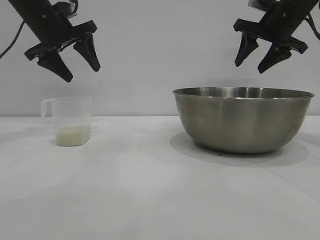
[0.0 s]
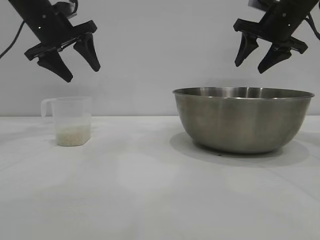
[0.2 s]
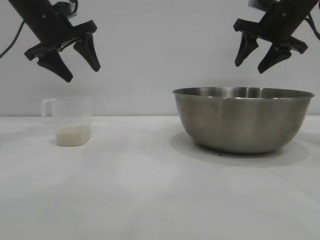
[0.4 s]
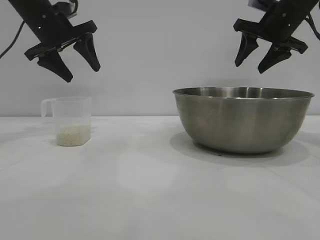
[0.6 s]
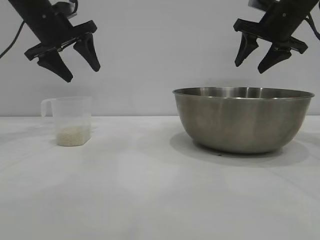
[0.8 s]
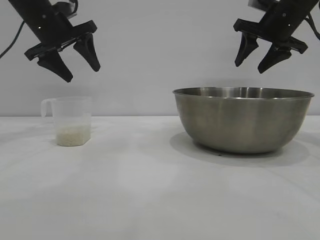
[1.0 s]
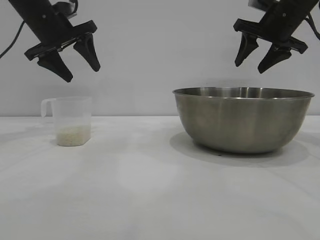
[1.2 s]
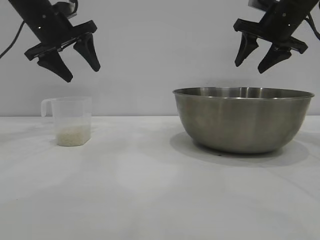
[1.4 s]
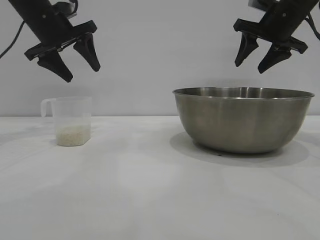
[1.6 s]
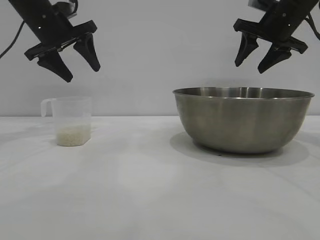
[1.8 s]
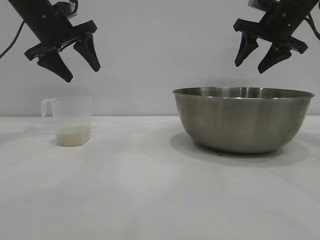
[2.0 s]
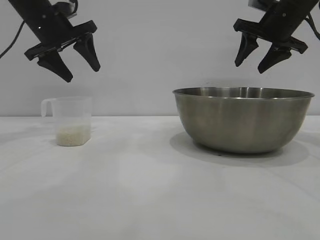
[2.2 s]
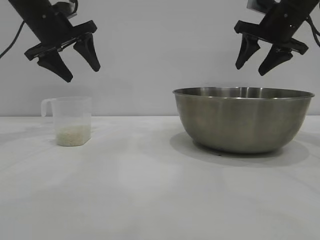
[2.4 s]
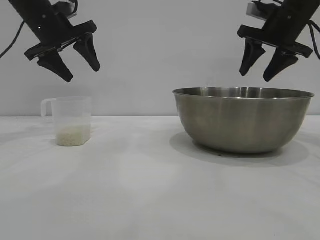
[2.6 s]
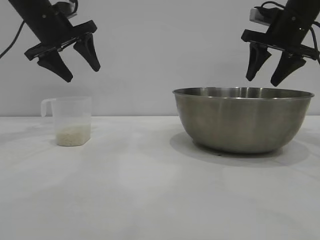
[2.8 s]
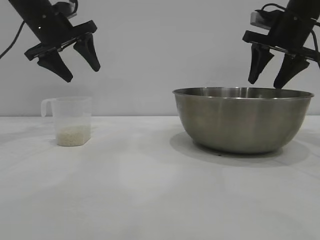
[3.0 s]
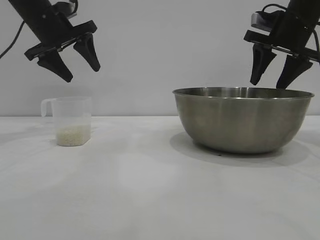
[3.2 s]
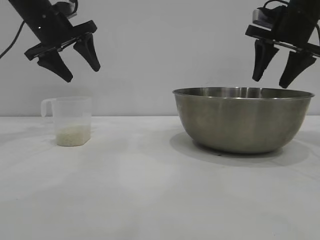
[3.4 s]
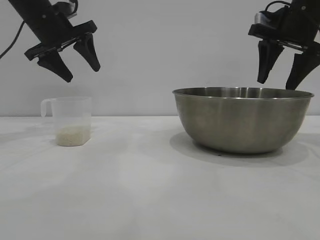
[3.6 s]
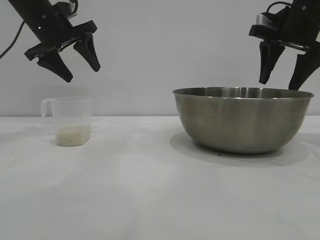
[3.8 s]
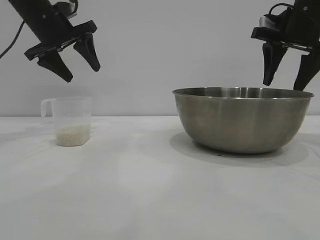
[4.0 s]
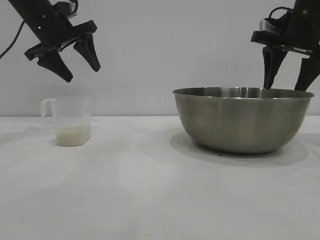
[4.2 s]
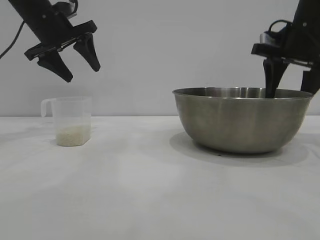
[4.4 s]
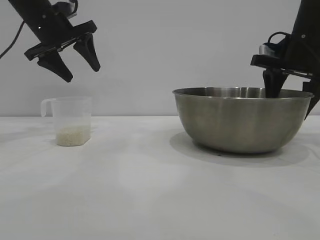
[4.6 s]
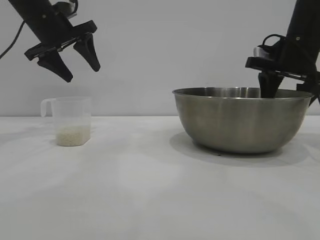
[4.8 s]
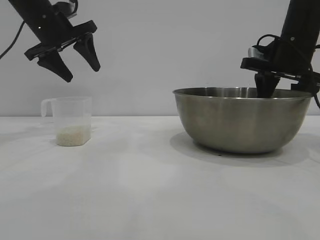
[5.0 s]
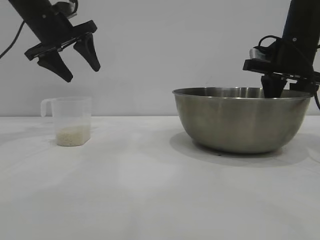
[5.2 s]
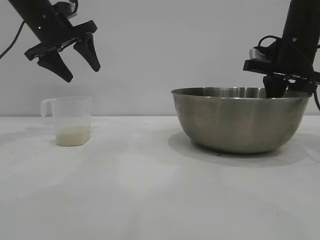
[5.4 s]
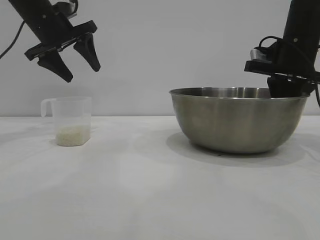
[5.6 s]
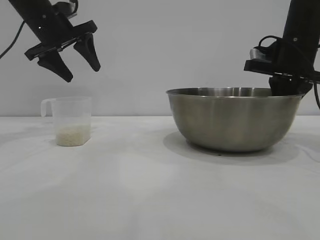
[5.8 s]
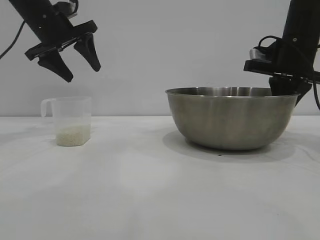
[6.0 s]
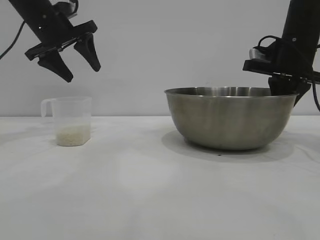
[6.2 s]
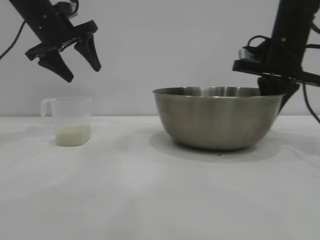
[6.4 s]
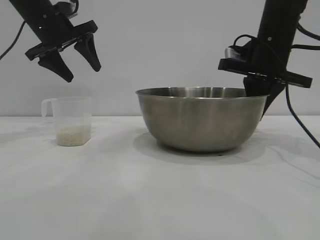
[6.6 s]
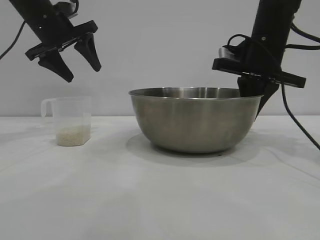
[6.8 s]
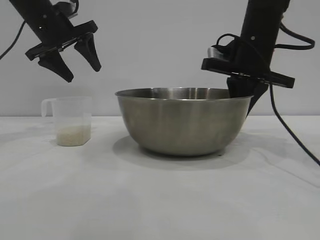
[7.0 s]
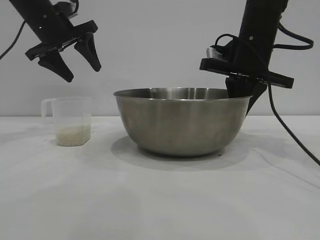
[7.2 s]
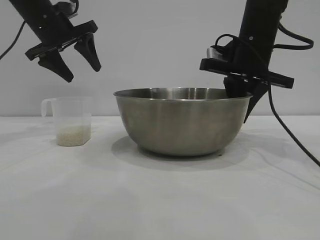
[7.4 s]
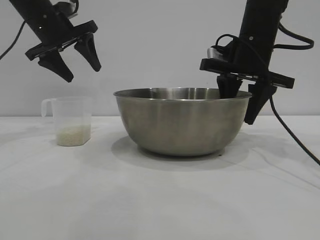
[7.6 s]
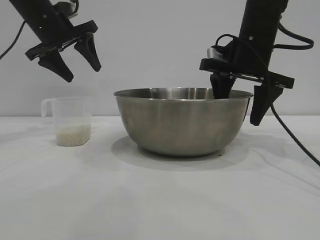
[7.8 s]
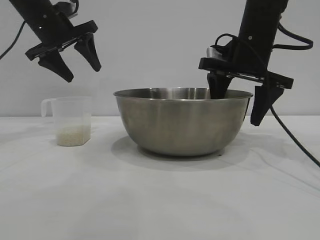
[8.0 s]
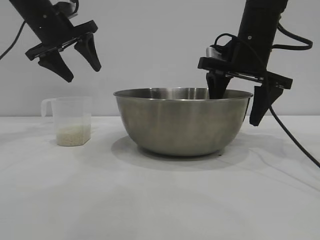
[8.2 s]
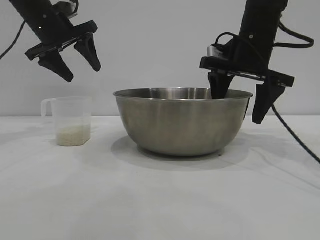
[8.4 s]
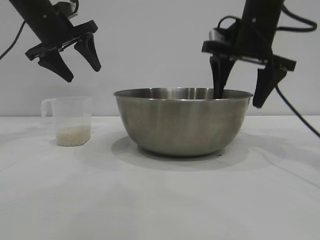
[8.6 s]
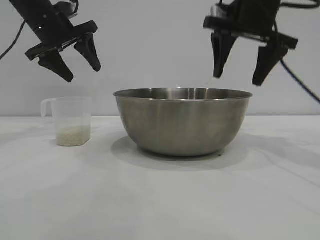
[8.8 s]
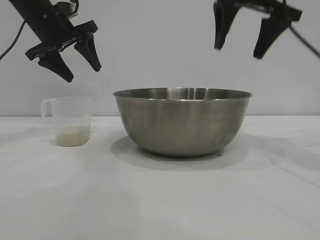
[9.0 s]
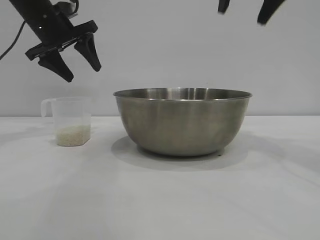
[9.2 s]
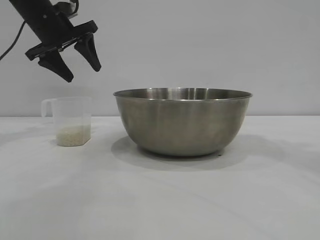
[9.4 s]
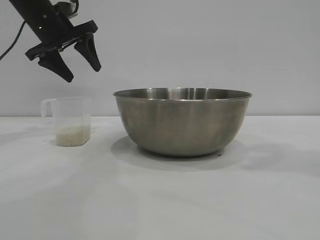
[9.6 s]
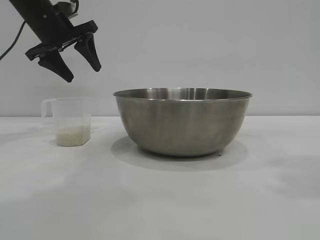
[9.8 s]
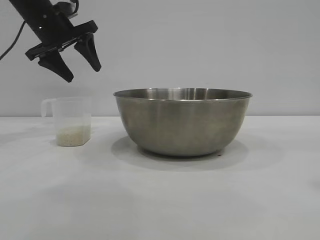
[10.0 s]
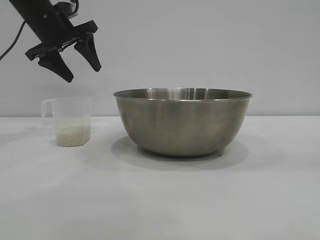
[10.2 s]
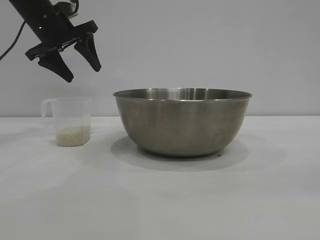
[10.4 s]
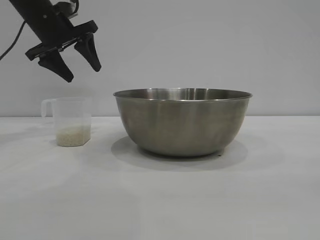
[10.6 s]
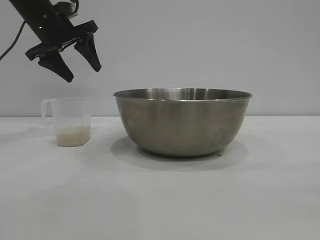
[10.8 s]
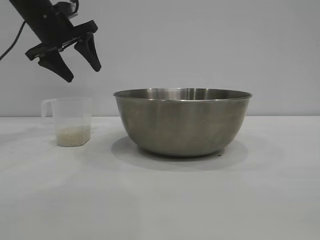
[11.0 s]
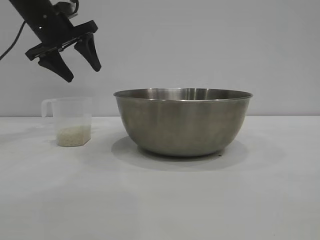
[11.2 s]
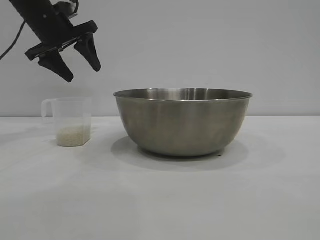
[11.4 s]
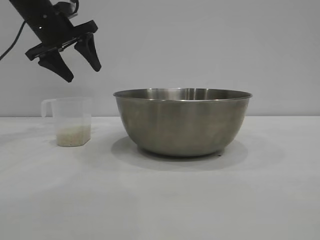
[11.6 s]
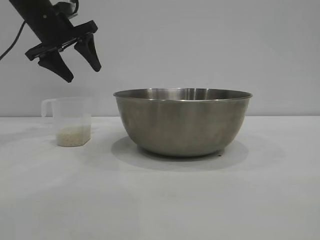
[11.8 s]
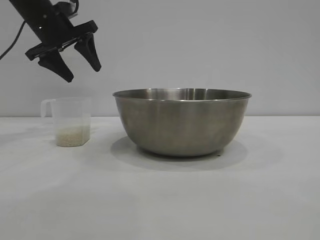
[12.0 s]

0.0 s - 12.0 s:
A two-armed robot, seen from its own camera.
Task of the whole recording: the right gripper grasp the rice container and place it in the center of the table, the left gripper grasp the rice scoop and pour the rice into the rice container.
Step, 0.0 s - 9.0 s: Move the bowl to the center of view with the right gripper.

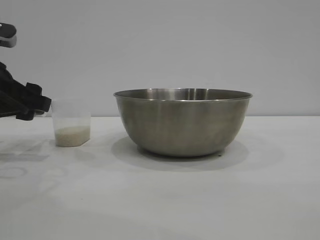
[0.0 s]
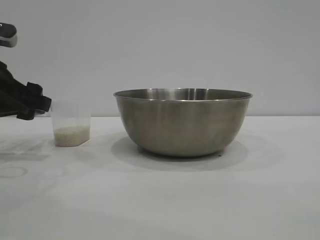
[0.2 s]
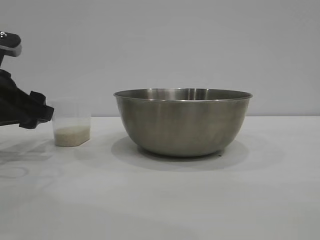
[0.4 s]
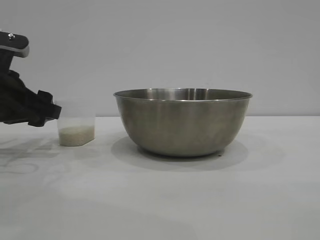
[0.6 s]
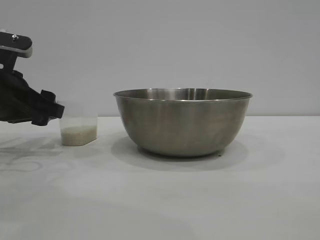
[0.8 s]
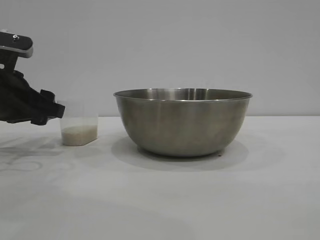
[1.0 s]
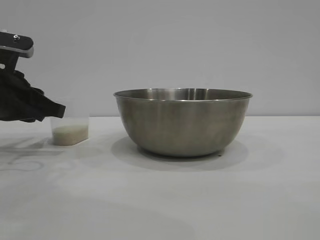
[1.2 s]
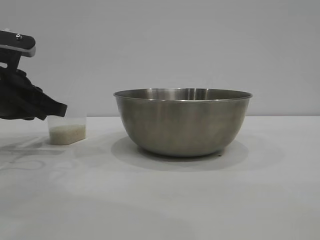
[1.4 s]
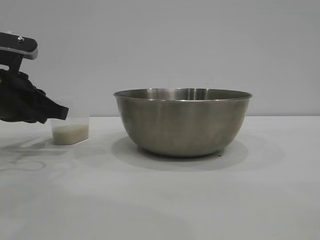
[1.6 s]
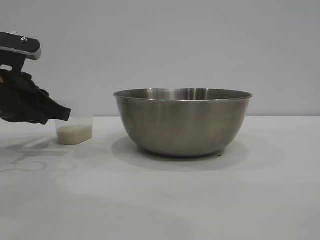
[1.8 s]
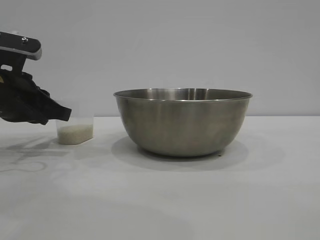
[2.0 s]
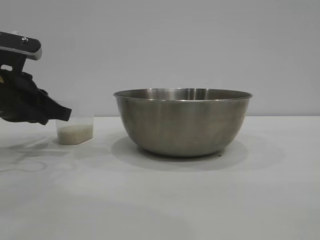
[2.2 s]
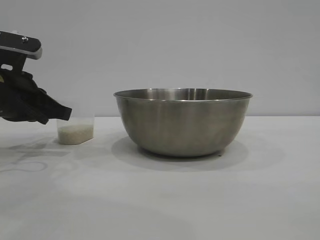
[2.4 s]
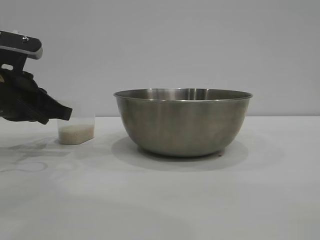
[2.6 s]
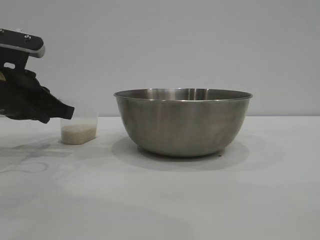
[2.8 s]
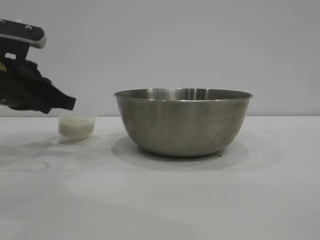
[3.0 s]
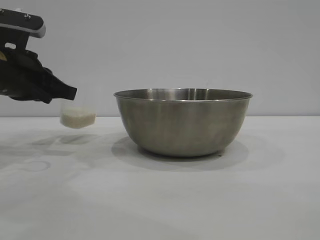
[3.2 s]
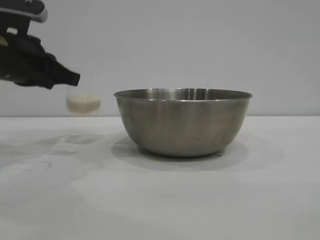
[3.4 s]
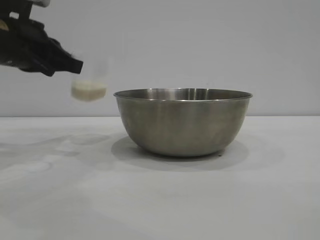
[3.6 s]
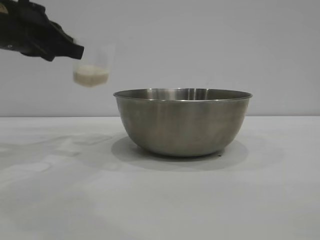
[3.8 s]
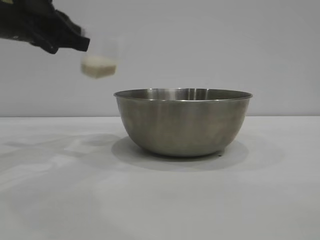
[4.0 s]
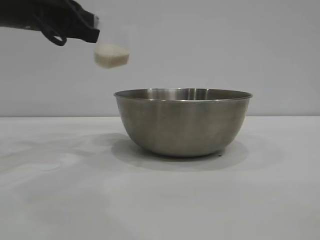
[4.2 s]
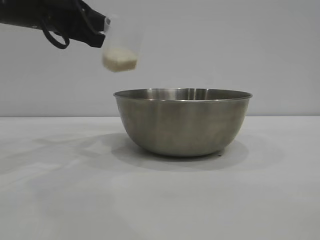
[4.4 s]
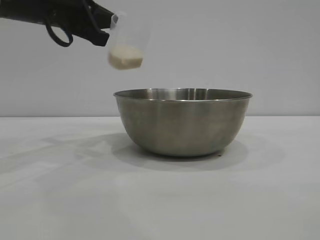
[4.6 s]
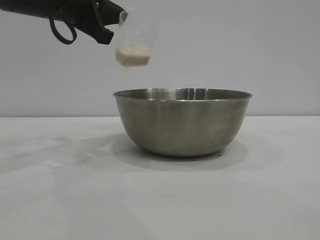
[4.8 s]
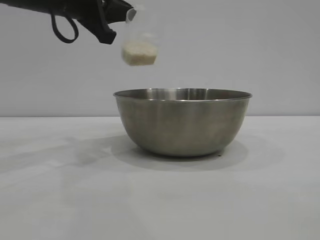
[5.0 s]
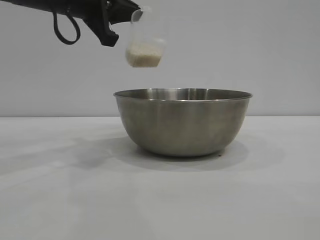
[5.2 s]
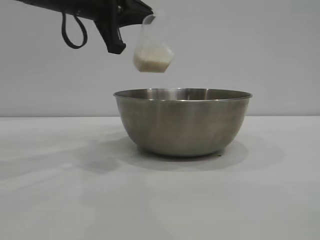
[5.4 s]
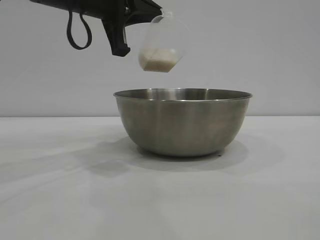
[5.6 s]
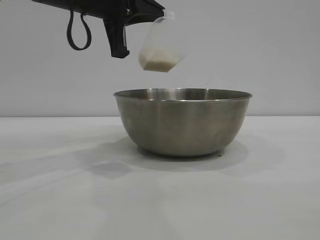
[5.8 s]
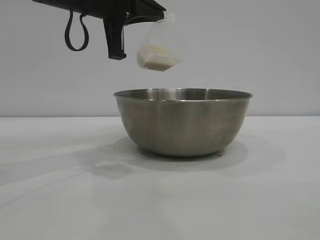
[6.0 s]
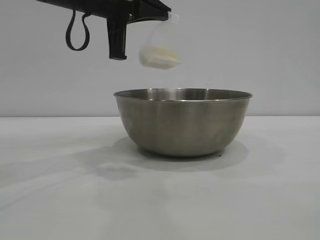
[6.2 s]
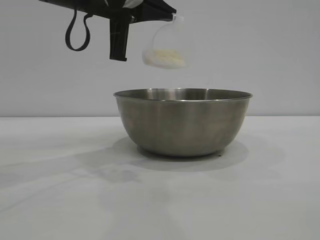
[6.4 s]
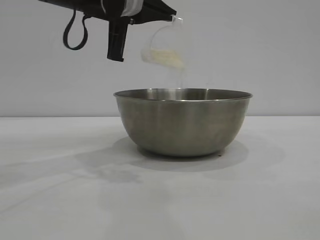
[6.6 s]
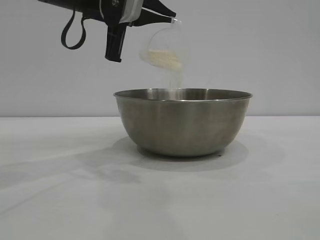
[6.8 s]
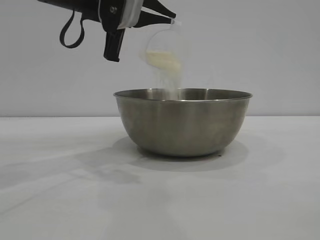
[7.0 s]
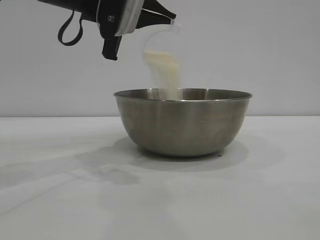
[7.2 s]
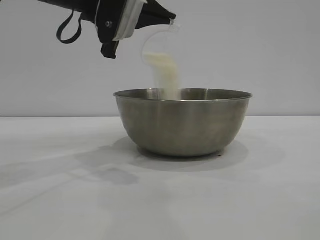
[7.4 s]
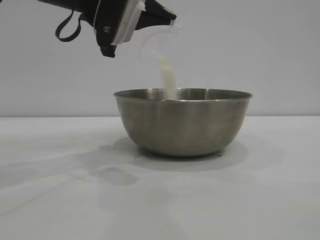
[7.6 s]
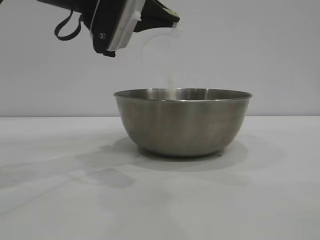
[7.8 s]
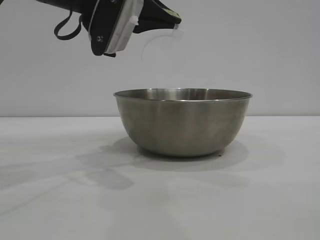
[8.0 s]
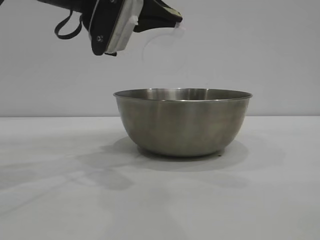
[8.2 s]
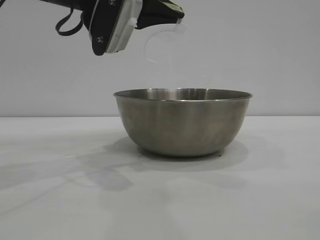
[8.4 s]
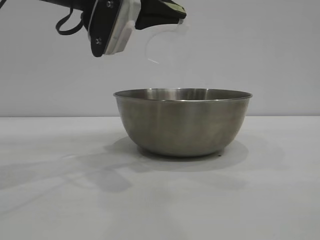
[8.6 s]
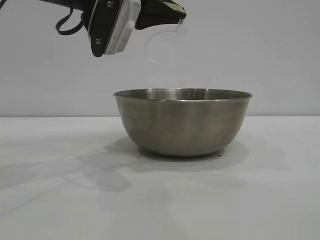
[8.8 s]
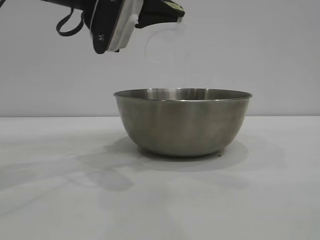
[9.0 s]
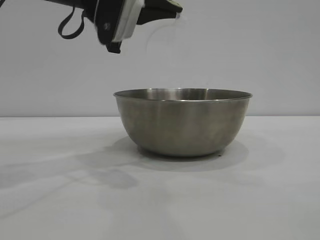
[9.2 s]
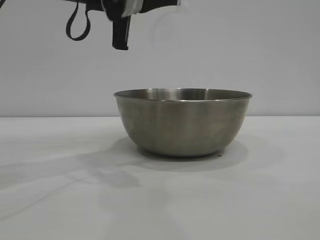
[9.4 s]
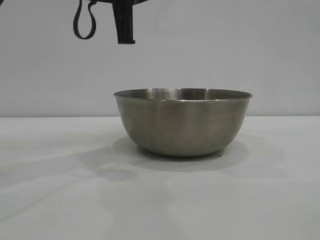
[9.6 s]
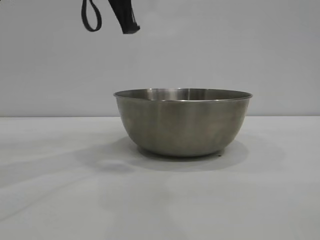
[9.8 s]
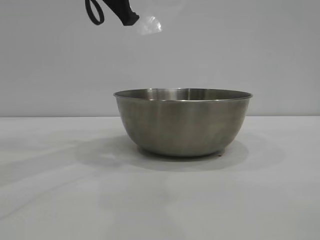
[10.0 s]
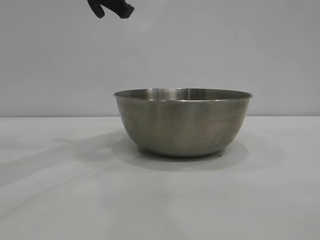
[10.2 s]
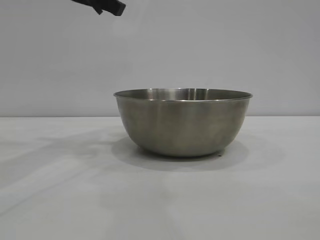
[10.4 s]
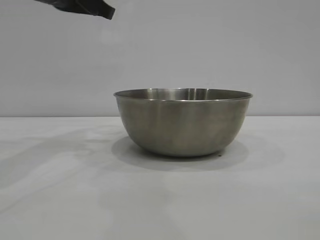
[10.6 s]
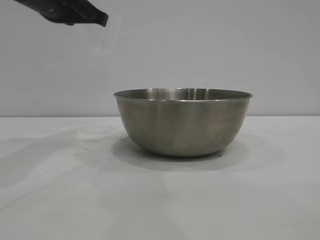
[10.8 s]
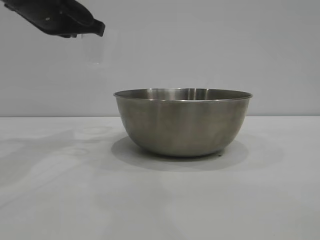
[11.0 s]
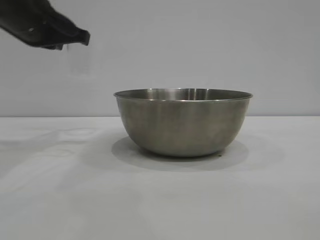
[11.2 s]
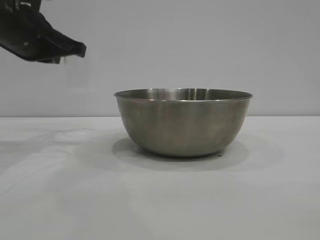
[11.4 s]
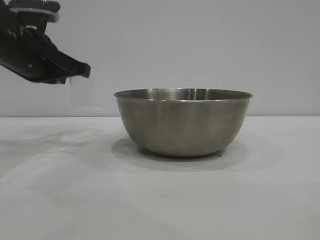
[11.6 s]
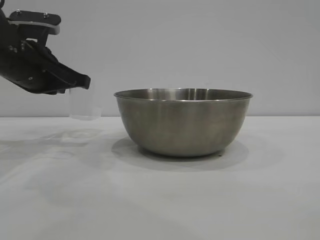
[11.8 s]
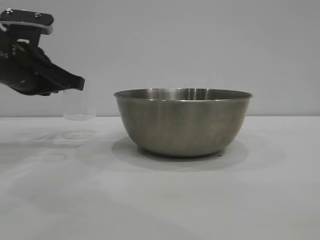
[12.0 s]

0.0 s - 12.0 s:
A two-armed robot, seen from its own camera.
Task of the whole recording: the right gripper grasp the rice container and place it in the center of the table, the left gripper grasp the rice scoop and pour the rice into the rice container.
Step, 0.0 s - 3.2 s: Pick up the cup with rice in it with the left gripper.
Step, 3.4 s - 8.0 s: Pour the rice from the cup into the bowl with the left gripper.
